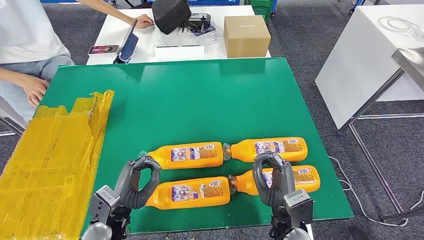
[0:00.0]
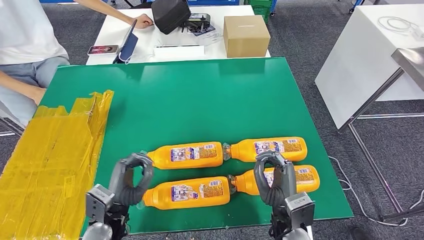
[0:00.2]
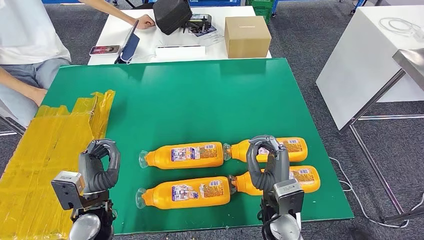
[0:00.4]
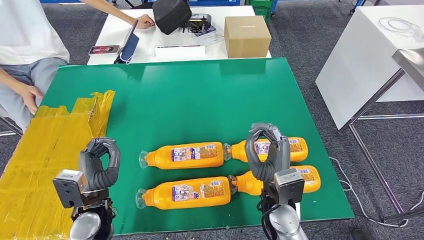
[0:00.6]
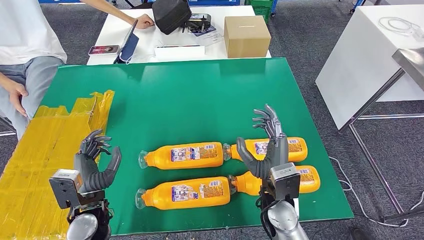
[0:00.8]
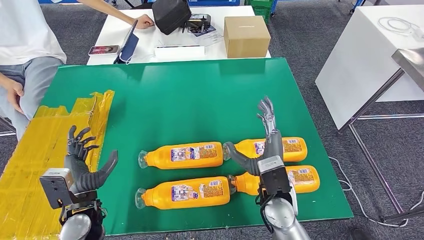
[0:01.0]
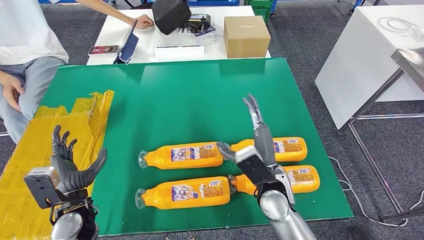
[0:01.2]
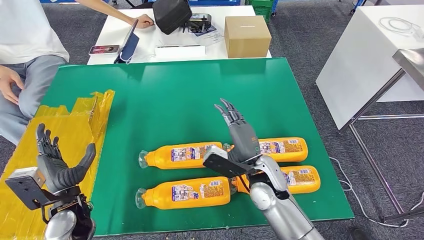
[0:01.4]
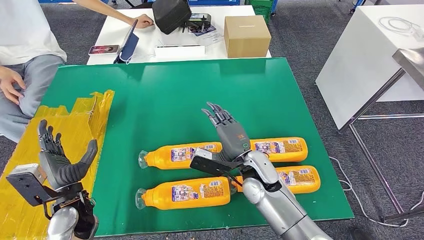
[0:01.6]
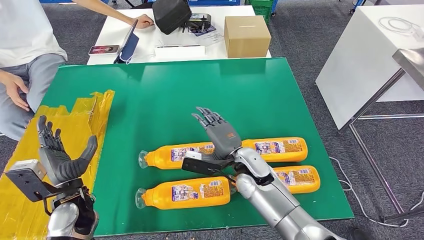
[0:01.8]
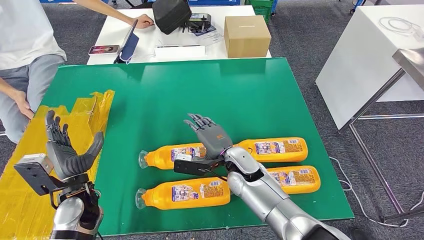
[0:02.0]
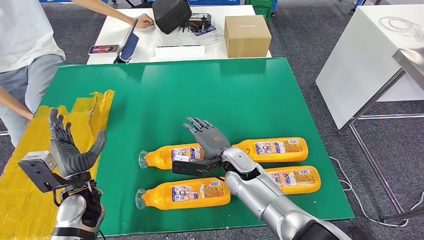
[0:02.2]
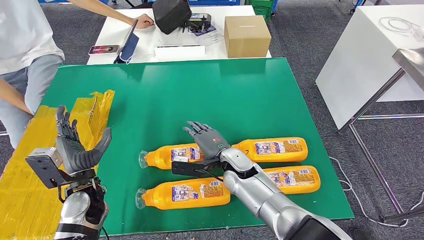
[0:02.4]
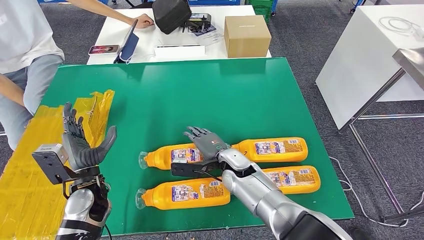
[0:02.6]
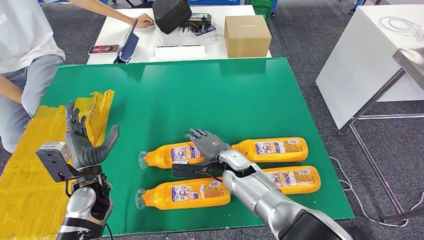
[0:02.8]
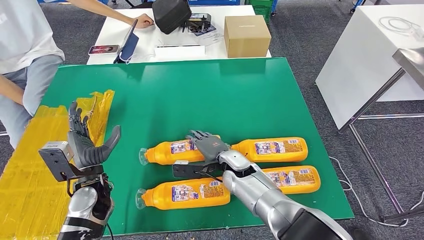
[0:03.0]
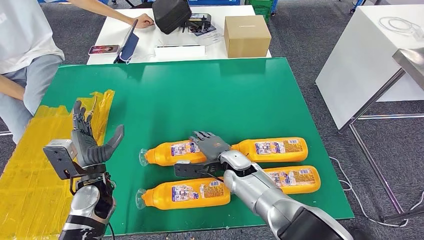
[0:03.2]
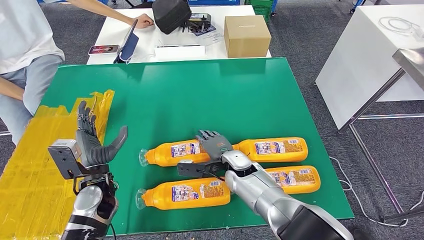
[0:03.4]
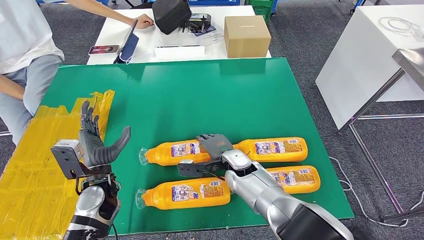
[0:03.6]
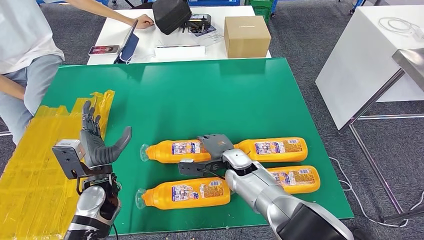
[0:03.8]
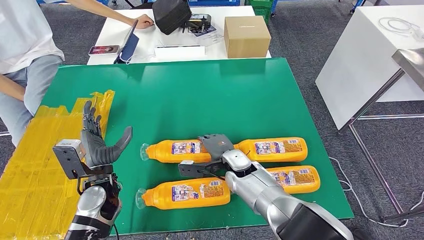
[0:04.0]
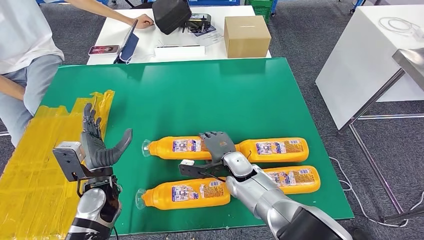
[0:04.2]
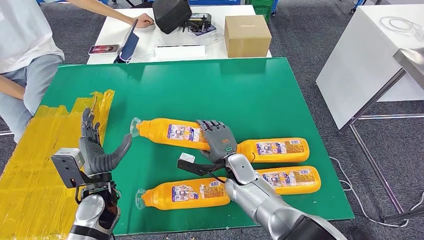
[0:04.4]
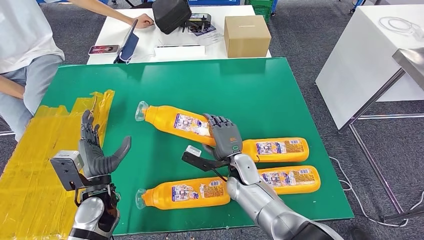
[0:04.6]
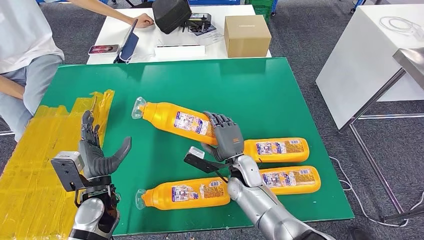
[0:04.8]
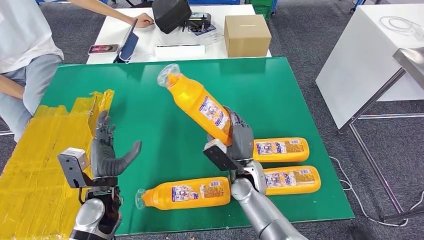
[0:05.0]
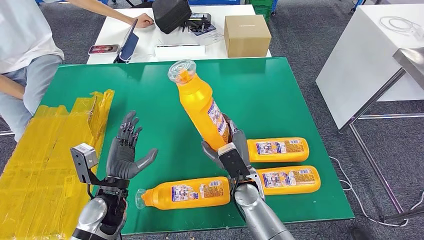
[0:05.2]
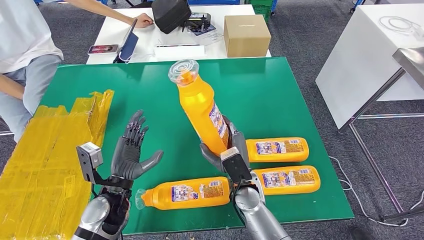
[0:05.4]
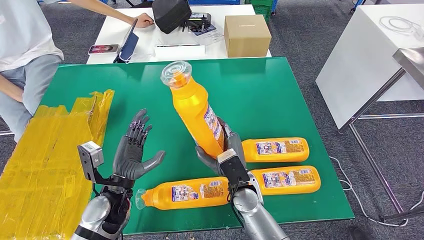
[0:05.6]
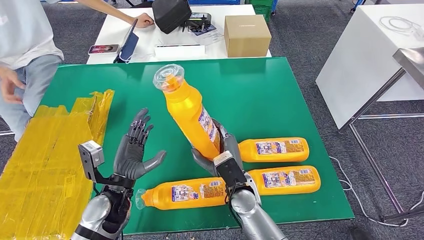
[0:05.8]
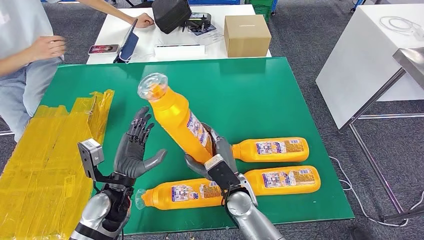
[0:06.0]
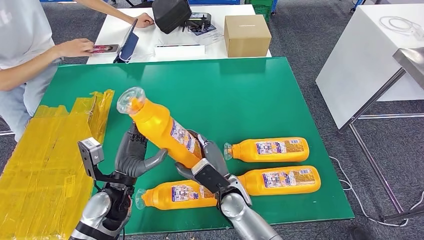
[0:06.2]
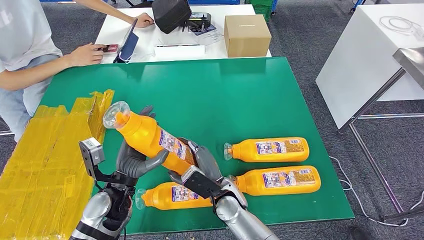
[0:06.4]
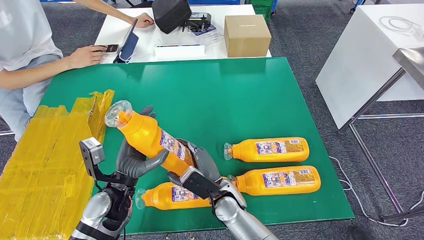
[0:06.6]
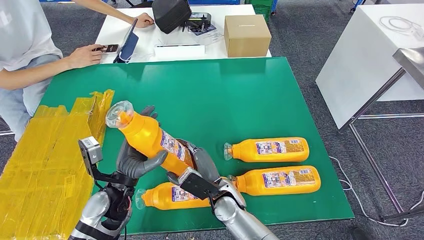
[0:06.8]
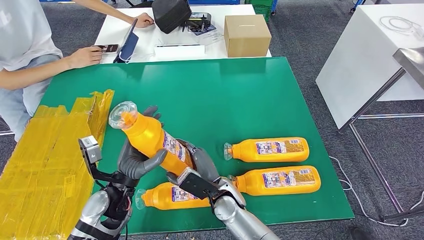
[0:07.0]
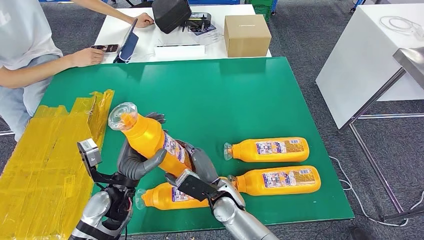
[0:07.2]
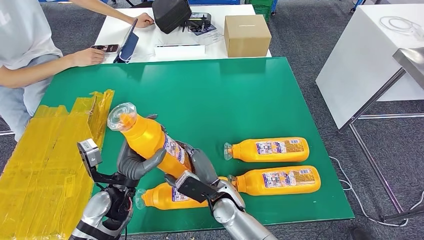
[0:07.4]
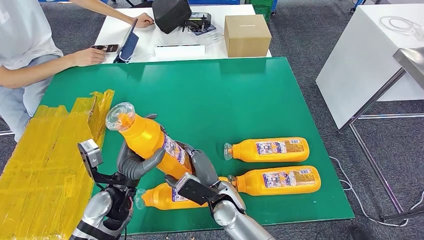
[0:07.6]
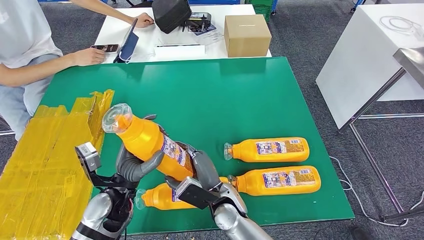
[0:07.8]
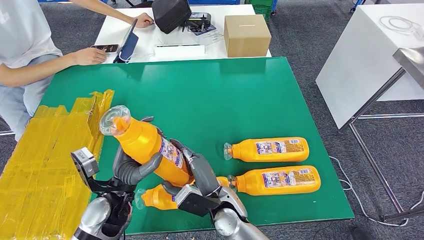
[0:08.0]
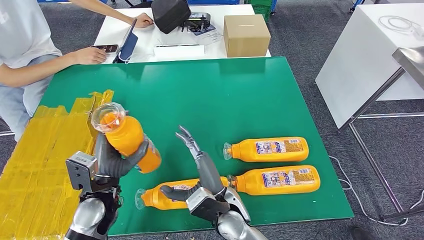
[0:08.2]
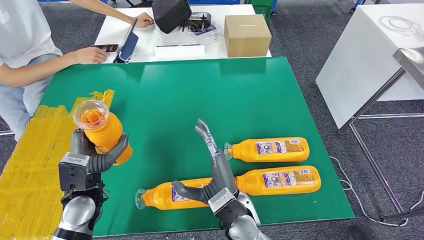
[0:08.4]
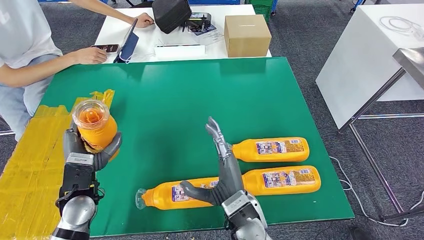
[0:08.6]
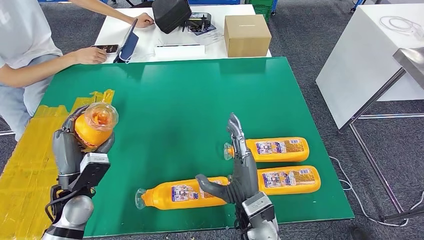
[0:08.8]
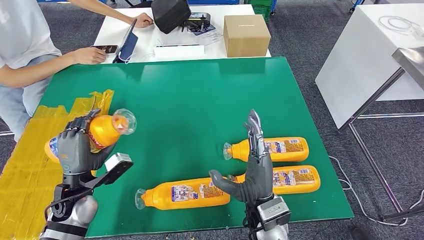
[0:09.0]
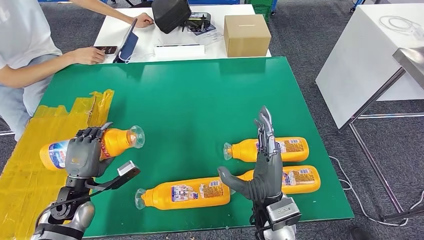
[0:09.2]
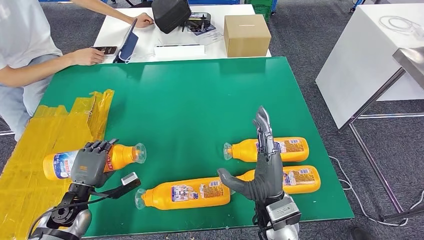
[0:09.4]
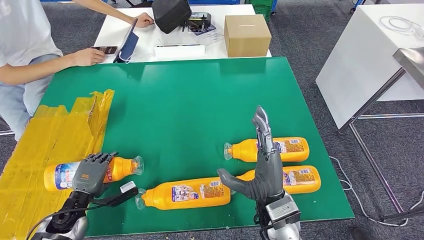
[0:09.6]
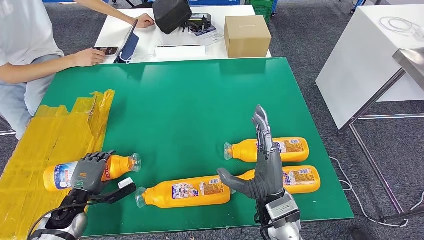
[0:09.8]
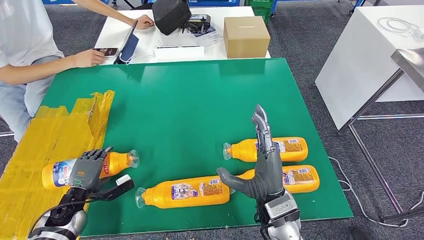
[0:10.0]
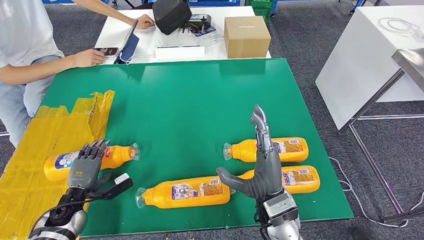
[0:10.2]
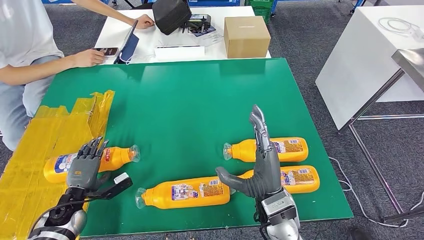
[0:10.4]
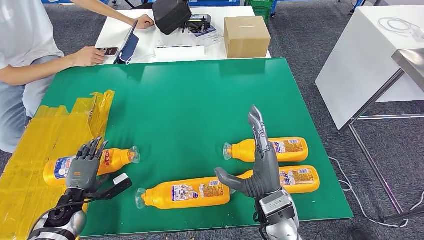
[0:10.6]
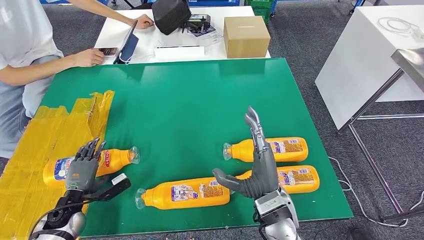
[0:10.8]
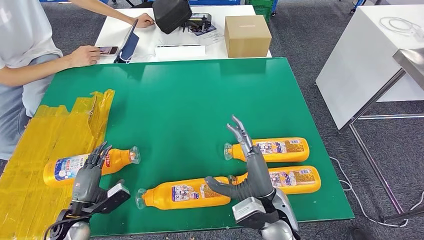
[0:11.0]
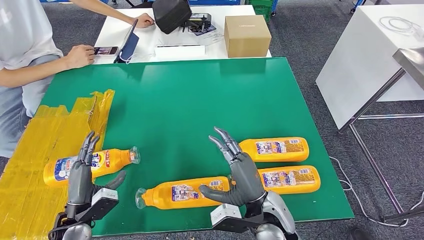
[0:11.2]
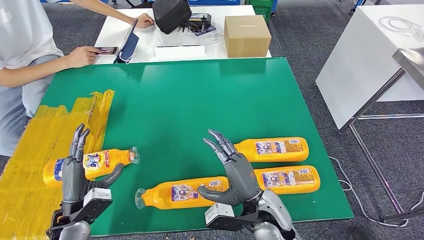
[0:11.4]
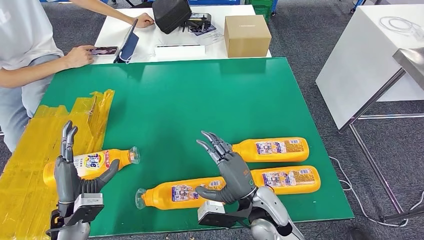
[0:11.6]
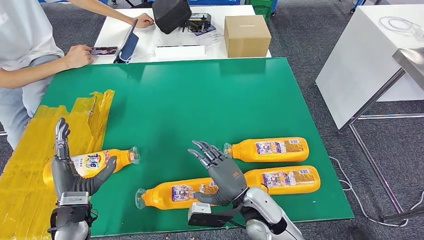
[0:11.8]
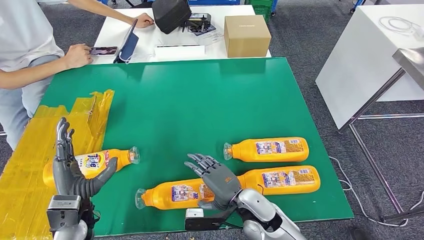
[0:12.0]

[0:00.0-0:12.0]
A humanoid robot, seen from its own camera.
Step, 0.0 to 5.6 s: Take the bottle from the table.
Step, 6.0 to 11.0 s: Flip the bottle to face forward.
1.6 to 3.0 s: The left hand ends up about 5 cm from where it was; the right hand goes approximately 5 cm downward.
4.4 to 6.0 s: The right hand travels backward by some 5 cm.
6.0 to 7.6 s: The hands move only a little.
7.6 to 9.0 s: The left hand goes some 10 cm to the left, while the right hand goes about 10 cm to the right and upward.
9.0 to 10.4 s: The left hand moves downward and to the left, some 15 cm.
10.4 to 12.0 s: The left hand goes approximately 15 cm upward and to the right; the right hand goes roughly 5 cm downward.

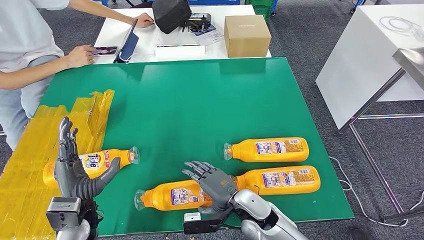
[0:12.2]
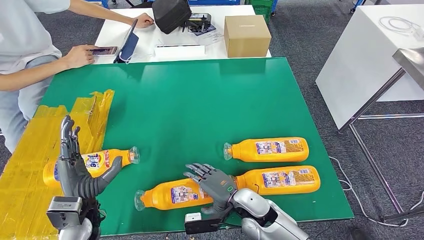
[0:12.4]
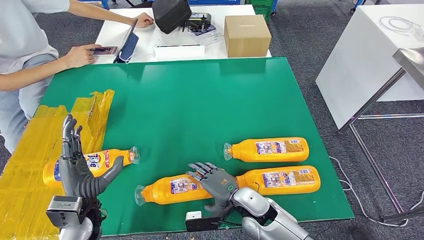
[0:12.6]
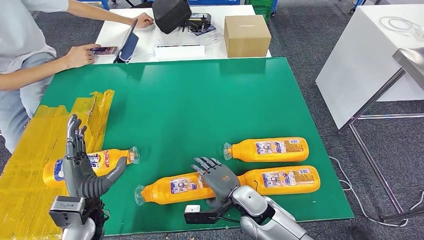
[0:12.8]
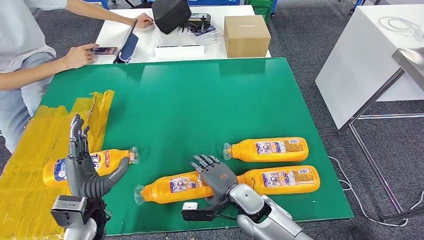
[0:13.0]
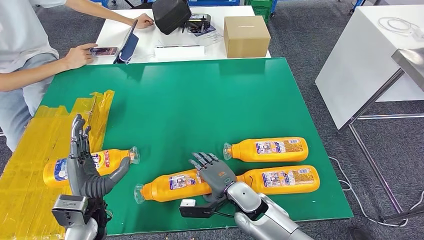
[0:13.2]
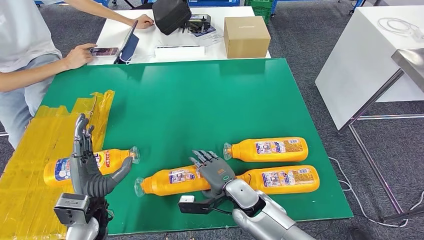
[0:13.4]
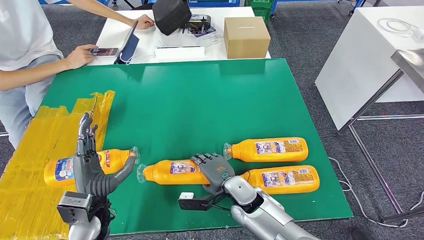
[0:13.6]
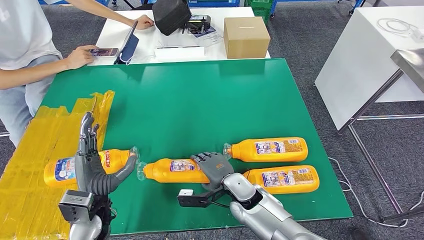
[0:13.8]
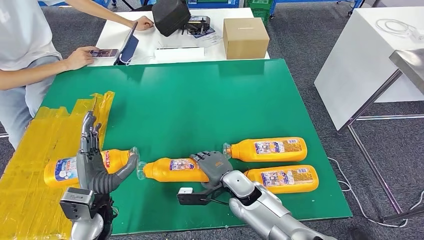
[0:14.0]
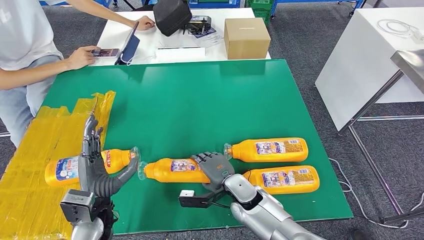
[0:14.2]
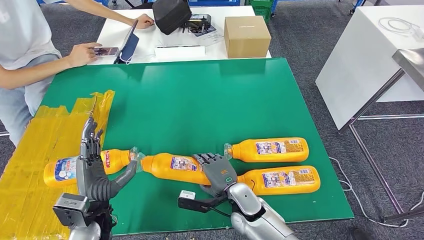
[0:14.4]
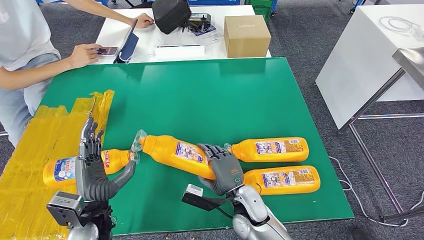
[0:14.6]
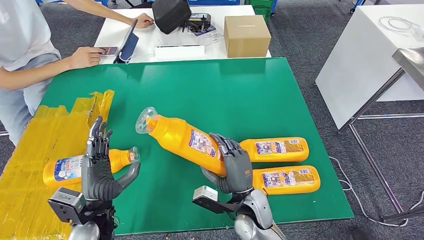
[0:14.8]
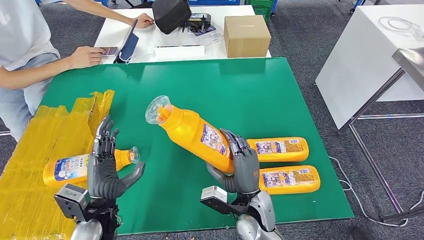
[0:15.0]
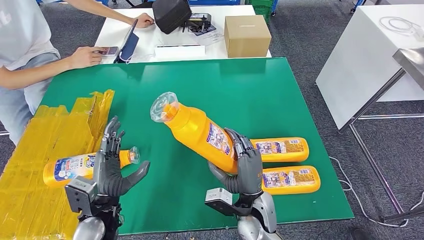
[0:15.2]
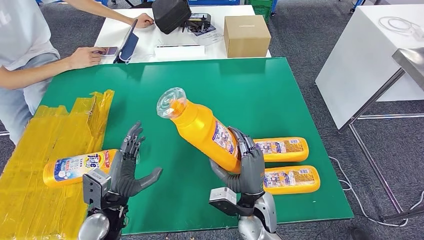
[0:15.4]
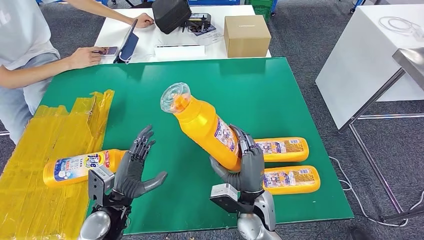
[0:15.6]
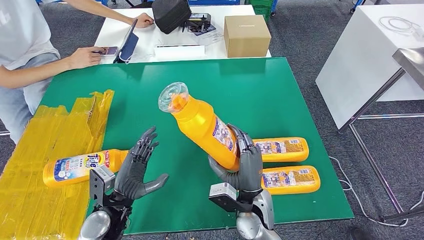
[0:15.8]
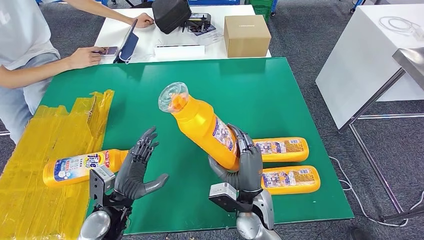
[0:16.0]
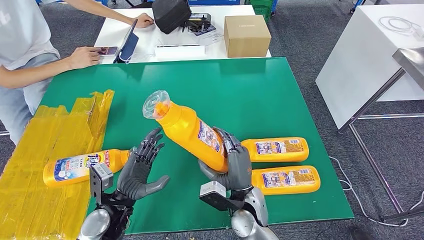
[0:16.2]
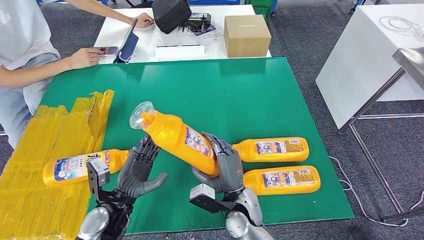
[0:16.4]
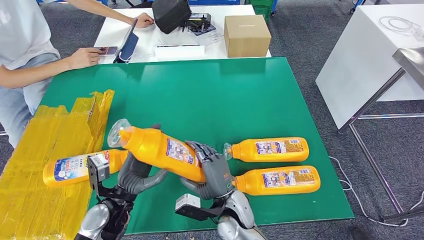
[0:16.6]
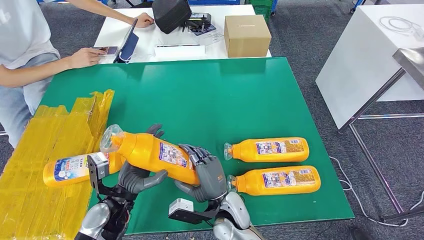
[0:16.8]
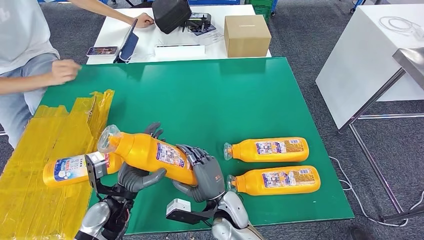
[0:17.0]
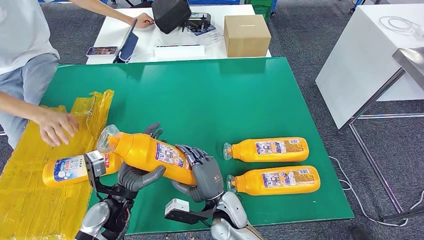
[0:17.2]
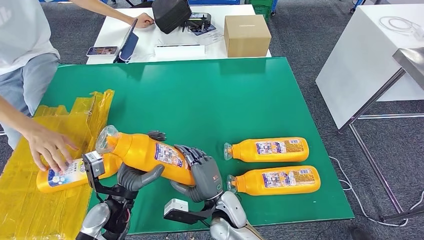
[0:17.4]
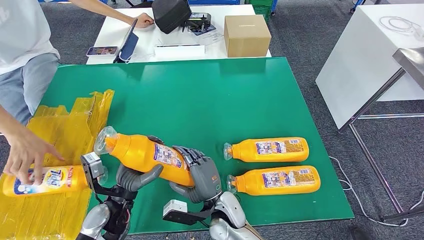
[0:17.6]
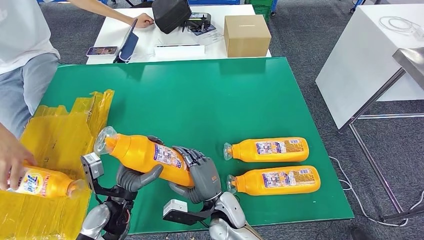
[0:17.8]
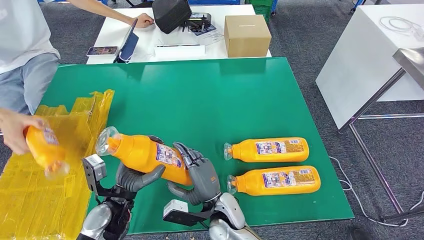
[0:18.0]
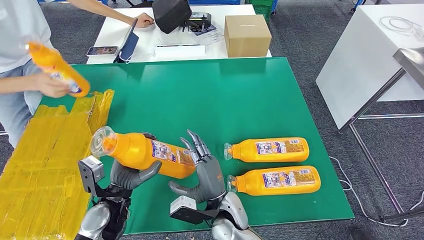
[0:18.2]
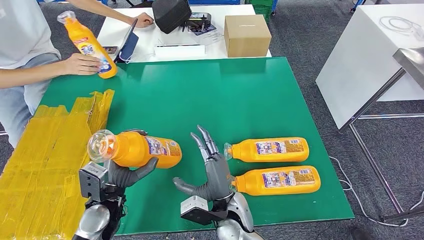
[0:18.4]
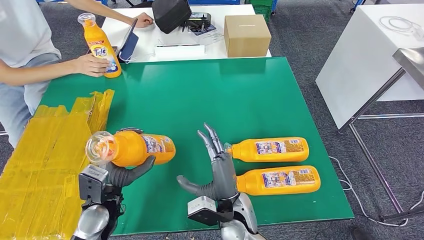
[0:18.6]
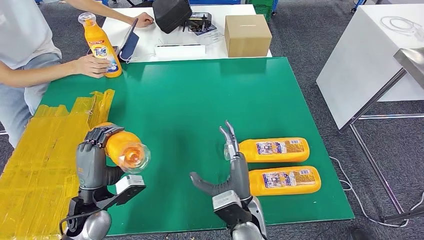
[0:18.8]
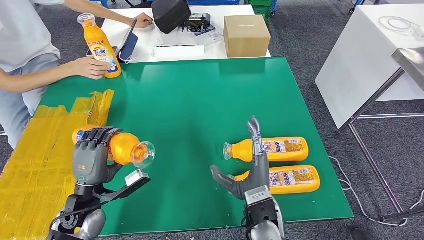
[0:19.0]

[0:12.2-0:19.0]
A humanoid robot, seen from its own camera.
Step, 12.2 to 15.6 s: Pick up the bottle from the table.
12.2 to 13.6 s: The right hand ends up roughly 5 cm from where it was.
13.6 to 15.0 s: The right hand moves roughly 5 cm.
16.2 to 17.6 s: The right hand is displaced to the left by roughly 5 cm.
